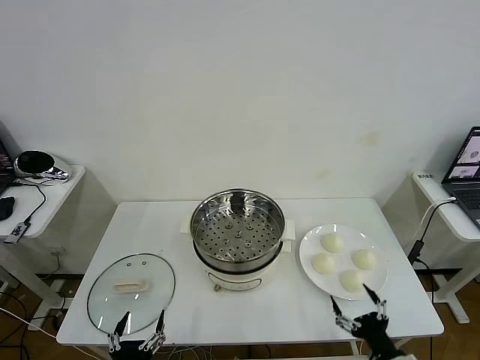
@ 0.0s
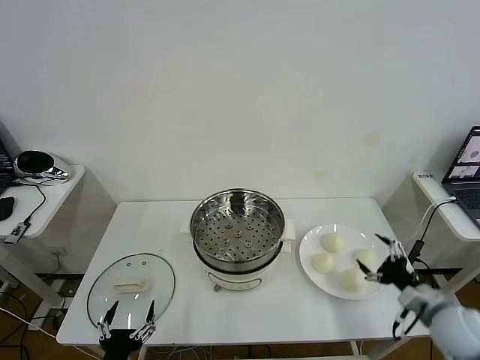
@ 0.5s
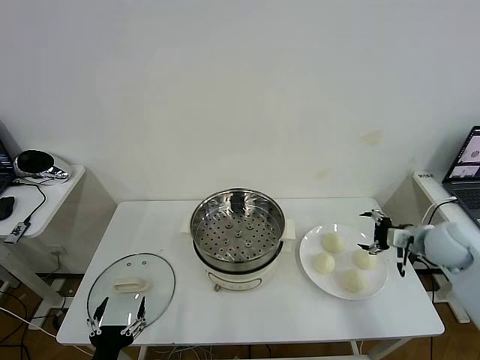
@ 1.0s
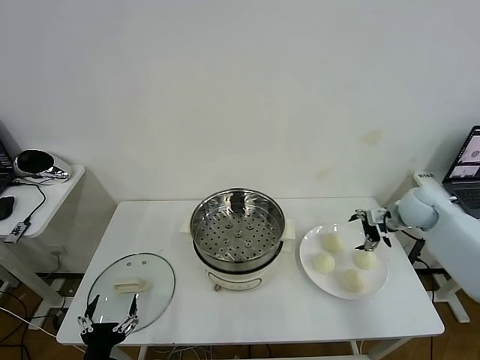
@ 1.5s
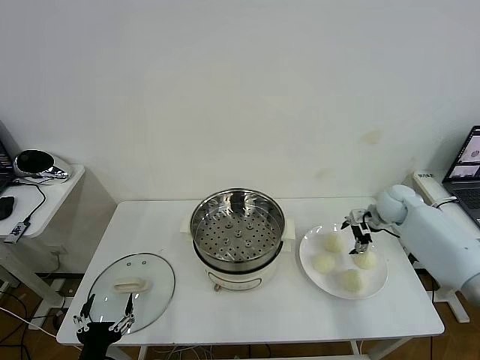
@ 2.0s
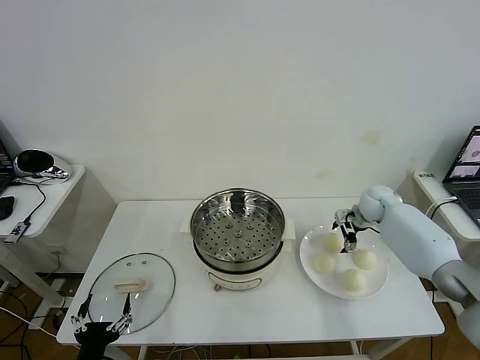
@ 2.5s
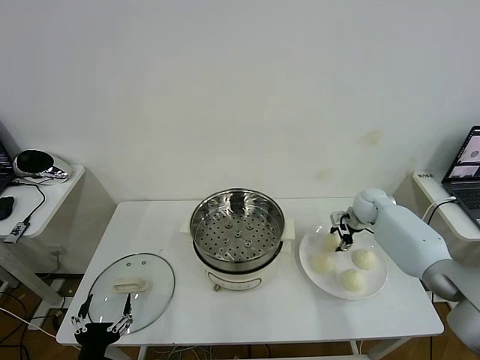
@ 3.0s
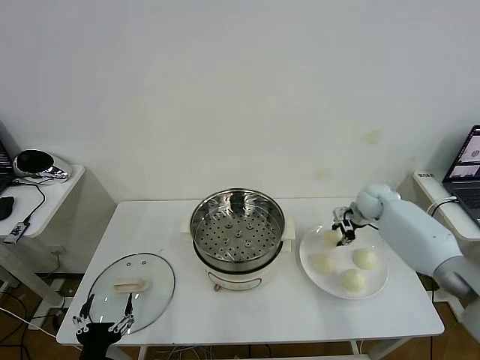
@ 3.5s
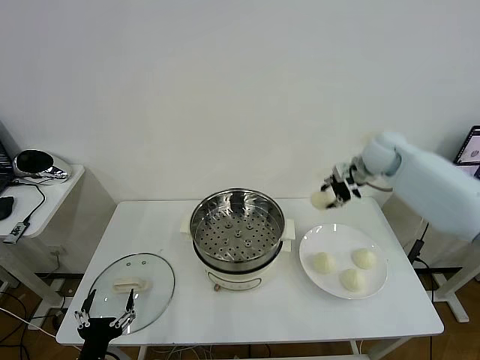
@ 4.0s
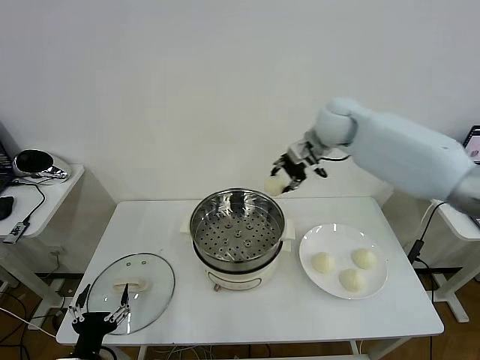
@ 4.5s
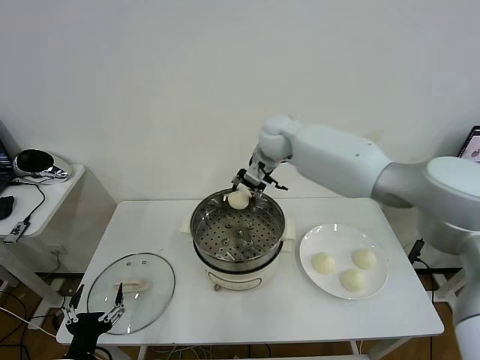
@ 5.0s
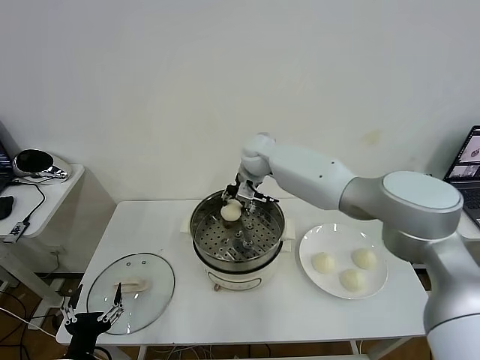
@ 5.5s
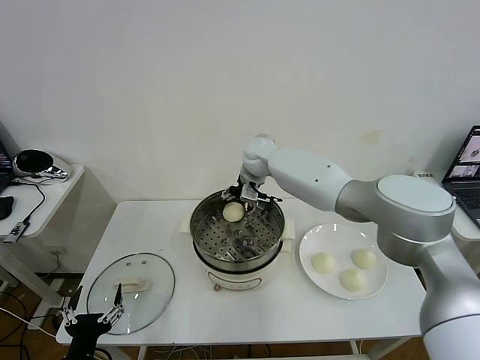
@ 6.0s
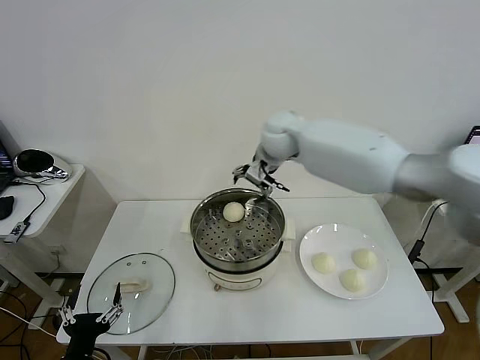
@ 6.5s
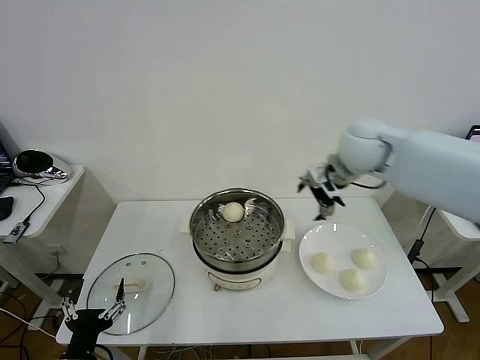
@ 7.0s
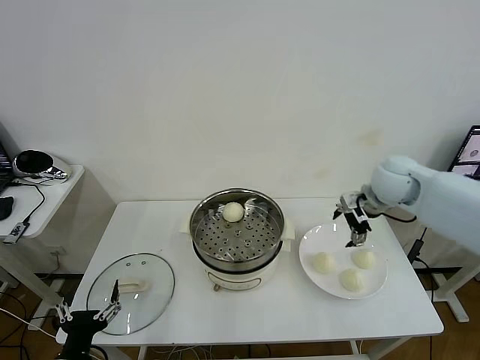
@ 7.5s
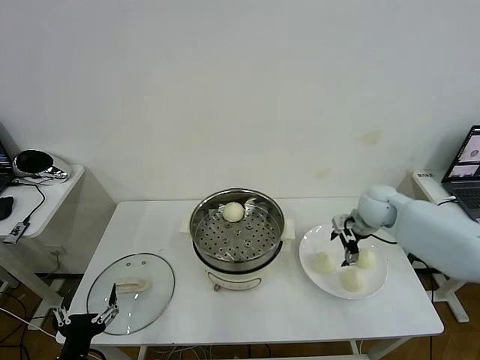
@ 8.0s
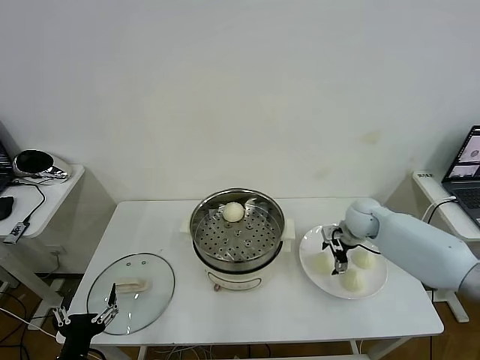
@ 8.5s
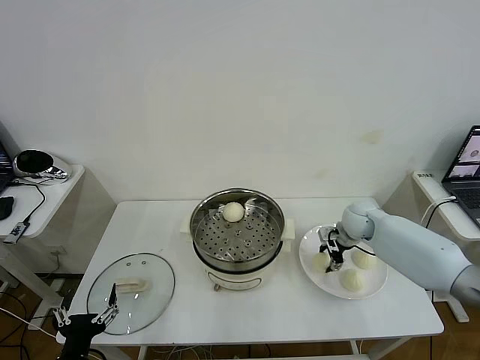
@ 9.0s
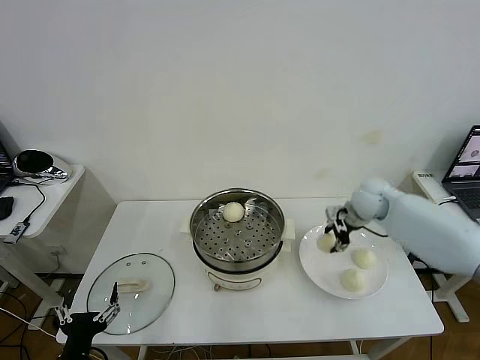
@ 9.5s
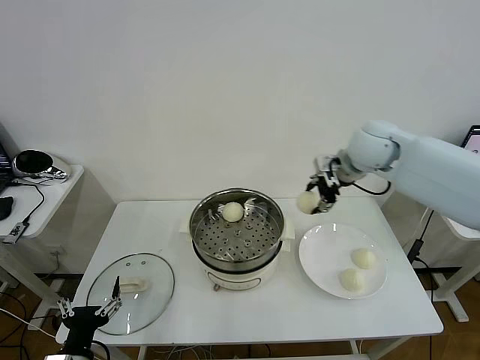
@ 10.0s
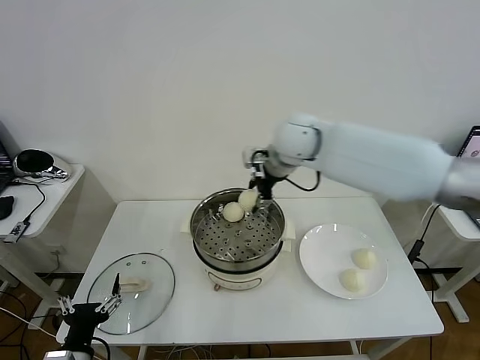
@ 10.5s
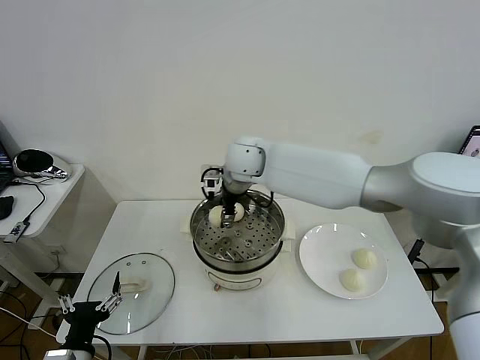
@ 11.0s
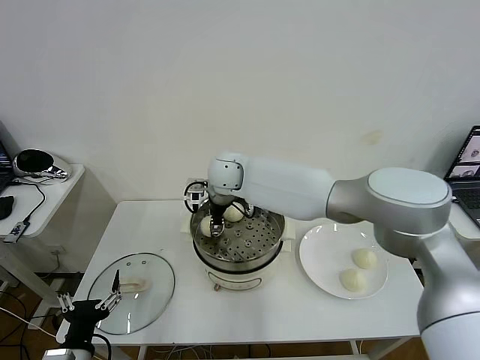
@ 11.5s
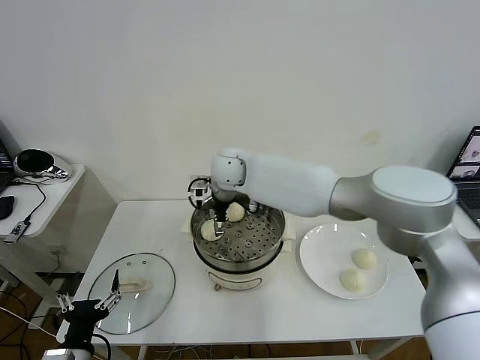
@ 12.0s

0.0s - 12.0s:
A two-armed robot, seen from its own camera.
Task of the whole recording: take steamed baozi put them in steamer then cover it.
Step, 0.0s - 3.0s: Grasp the baozi in the plate with right gripper.
Step, 3.5s - 6.0s: Place the baozi on the steamer with right gripper.
Step, 6.5s - 9.0s: Grasp the baozi in the plate with right gripper.
Step, 9.5s - 12.0s: Place the baozi on the steamer with right gripper.
2.0s - 4.0s: The right gripper shifts about 20 cm upward and to the left, and closes up.
4.0s - 6.0s: The right gripper travels to the left by some 25 cm, and opens.
6.0s - 8.0s: The right gripper is displaced to the right by roughly 25 cm.
8.0s - 10.0s: The right gripper goes about 20 cm upward and to the left, and closes up.
10.0s - 12.0s: The right gripper goes roughly 25 cm to the left, and opens.

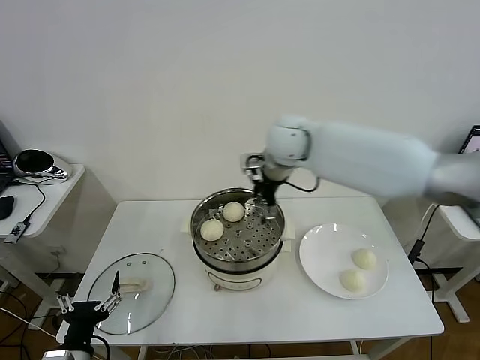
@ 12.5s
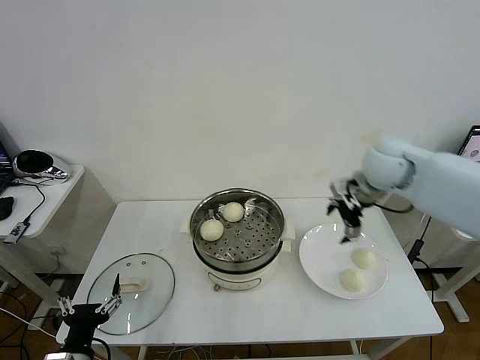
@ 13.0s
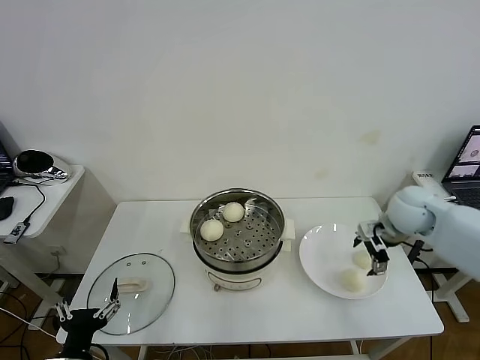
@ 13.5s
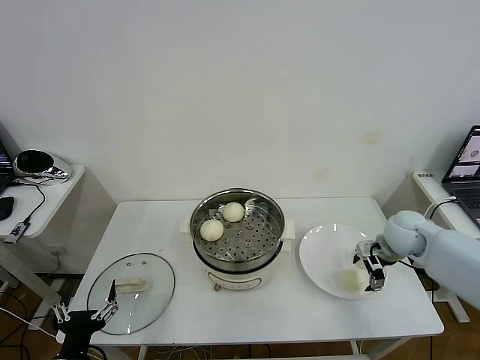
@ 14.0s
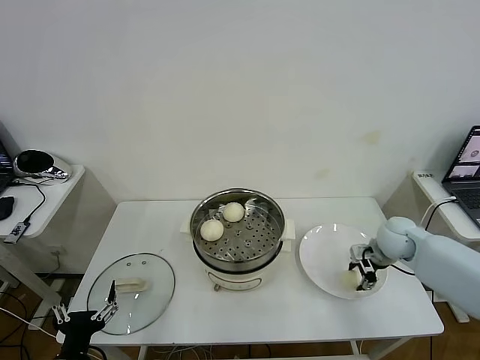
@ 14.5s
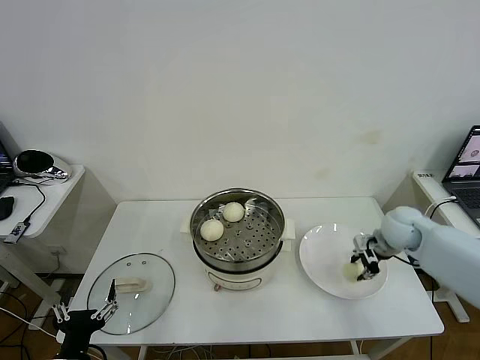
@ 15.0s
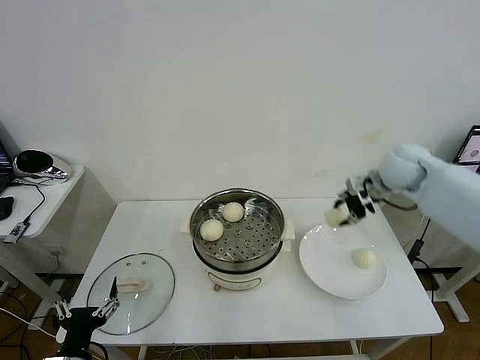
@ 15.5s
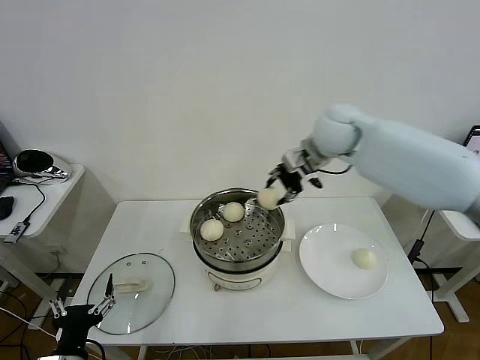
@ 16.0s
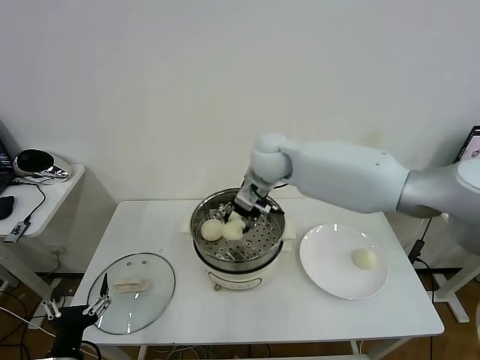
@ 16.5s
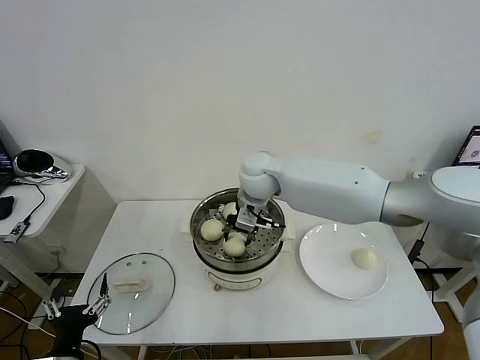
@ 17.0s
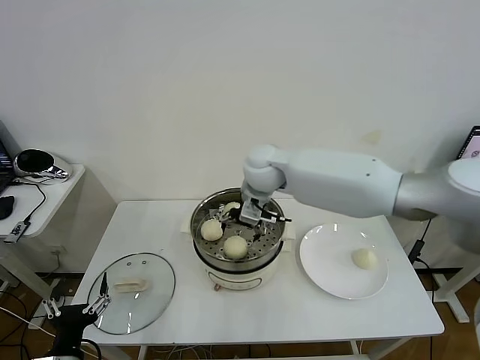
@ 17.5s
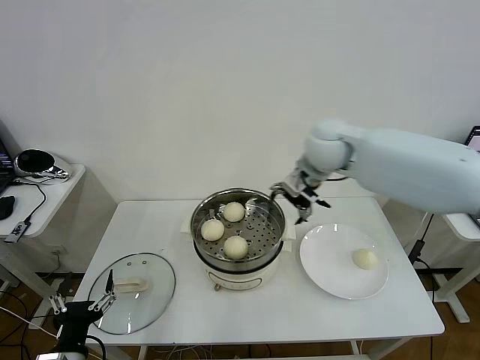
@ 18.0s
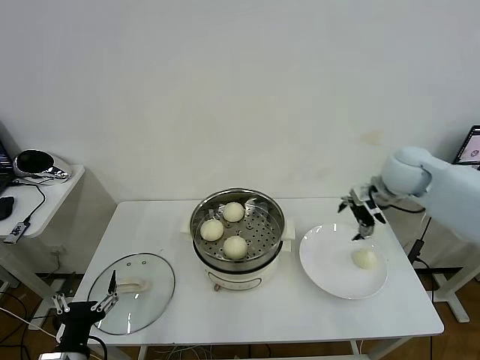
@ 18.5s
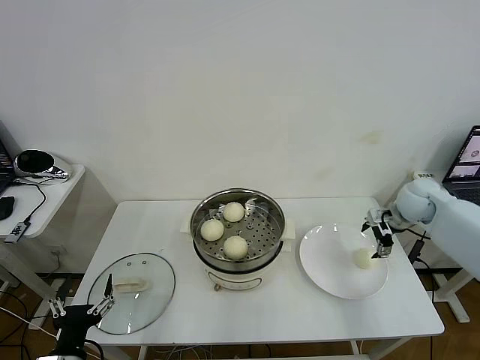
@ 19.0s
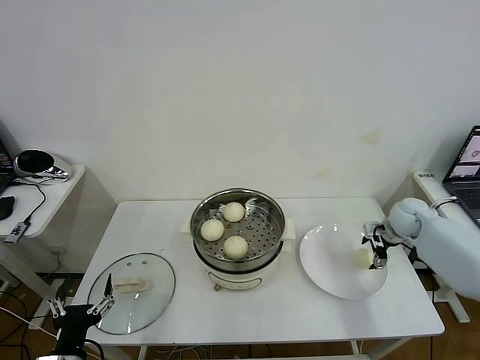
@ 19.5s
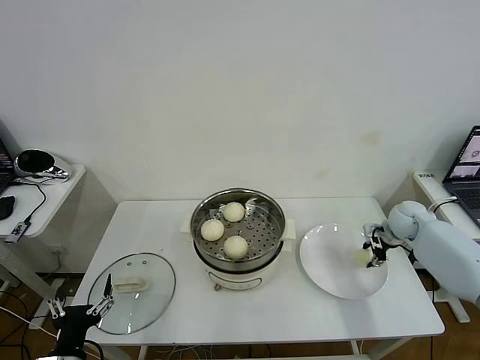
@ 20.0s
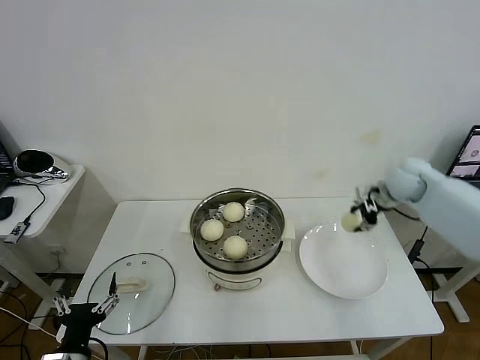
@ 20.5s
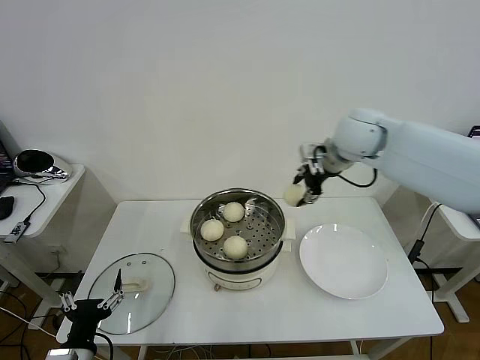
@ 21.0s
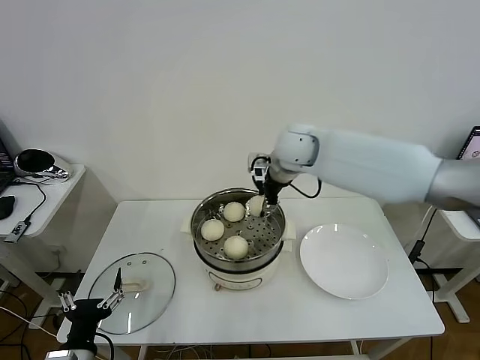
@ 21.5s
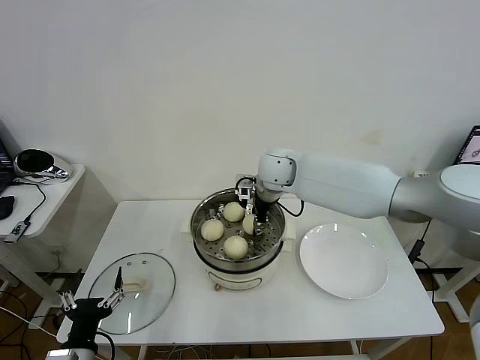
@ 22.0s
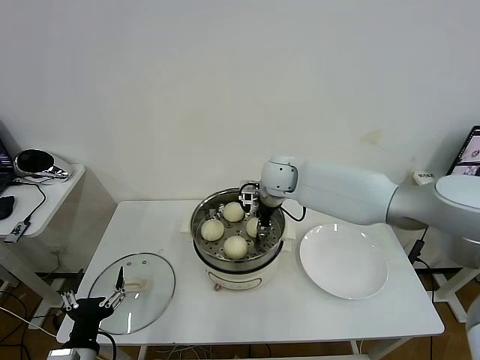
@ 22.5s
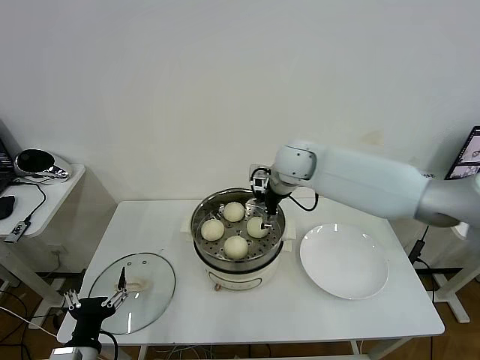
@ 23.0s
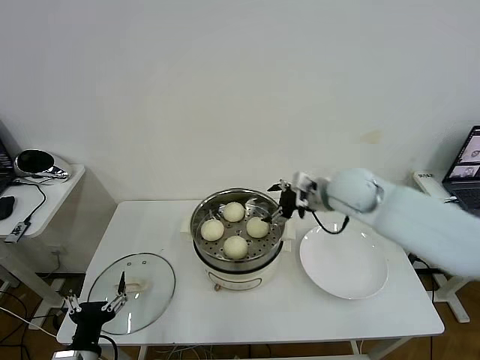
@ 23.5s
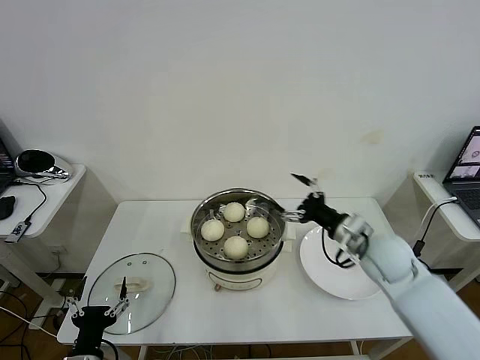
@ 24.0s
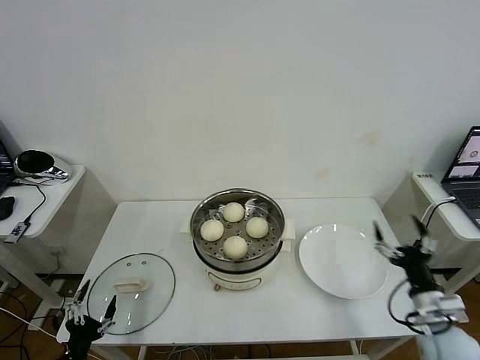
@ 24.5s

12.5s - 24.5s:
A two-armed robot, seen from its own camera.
Task of the whole recording: take steamed baozi put them in steamer then cover it.
Step, 12.5s - 14.5s: Grasp the baozi in the plate with right gripper.
Step, 15.0s - 17.0s: Place the baozi on the steamer with right gripper.
Step, 17.5s - 19.5s: Grasp the baozi in the plate with right gripper.
Step, 20.0s - 22.5s: Place the baozi on the steamer with right gripper.
12.5s - 14.5s: The right gripper moves to the right and downward, roughly 35 cm, and closes its fingers.
14.5s - 16.5s: The right gripper shifts about 35 cm to the left and upward.
16.5s - 18.5s: The right gripper shifts roughly 30 cm to the right, and opens up.
18.5s - 20.5s: The right gripper reaches roughly 15 cm downward, then returns, and closes up.
20.5s - 22.5s: The right gripper moves to the left, approximately 30 cm.
22.5s - 24.5s: The left gripper is displaced downward and to the left by about 10 cm, while the right gripper is displaced backward, to the right and downward by approximately 50 cm, and opens up.

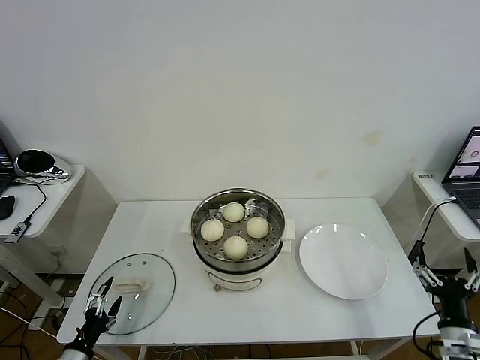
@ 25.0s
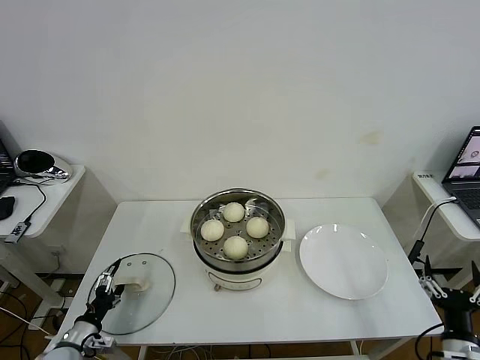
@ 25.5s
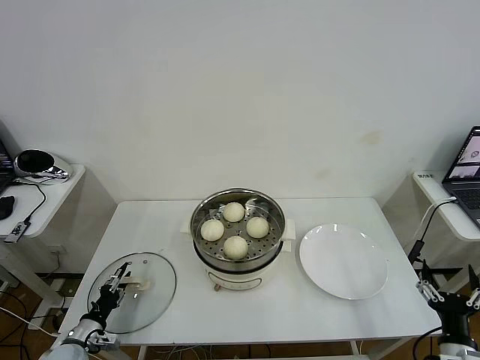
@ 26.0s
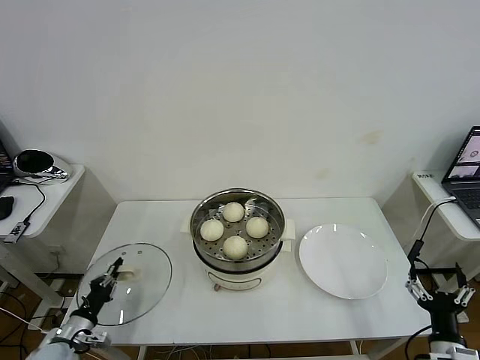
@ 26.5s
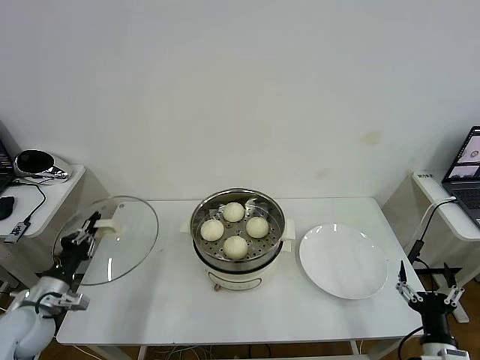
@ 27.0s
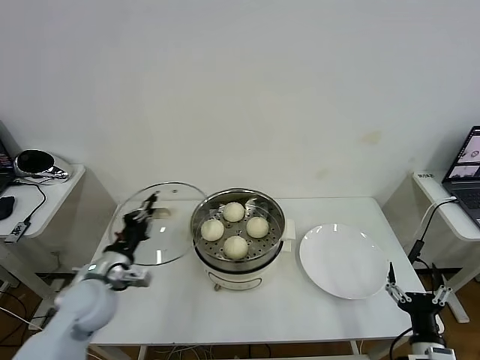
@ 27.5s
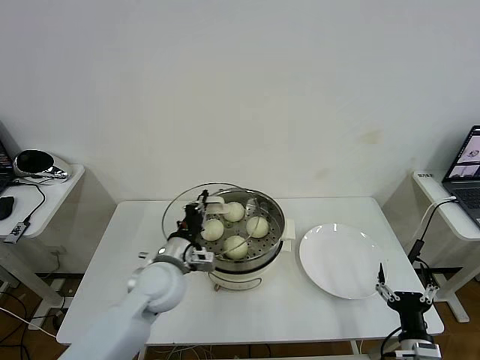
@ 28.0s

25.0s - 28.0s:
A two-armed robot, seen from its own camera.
Task of the whole recording: take steamed baozi put them in steamer then cover it.
25.0s - 26.5s: The left gripper shifts some 10 cm forward, and closes up.
26.5s - 28.0s: The left gripper shifts some 30 cm to the right, upward and forward.
